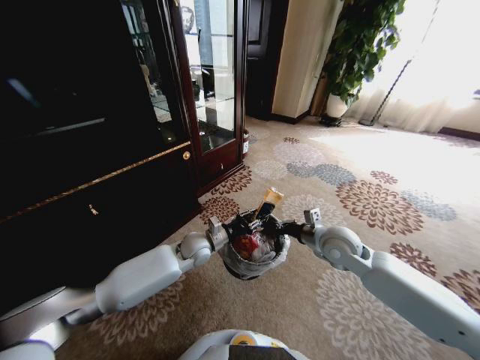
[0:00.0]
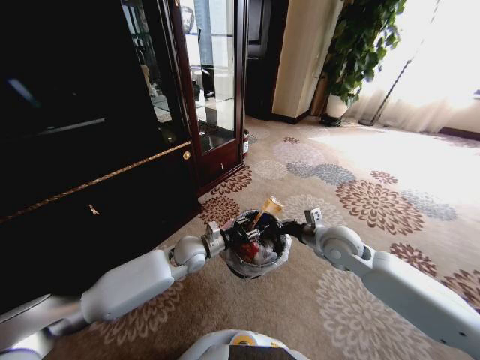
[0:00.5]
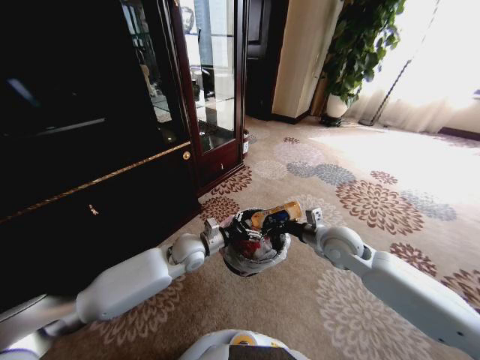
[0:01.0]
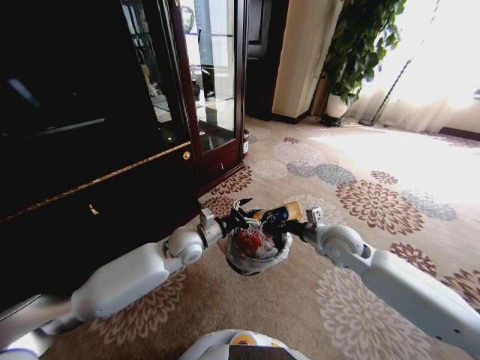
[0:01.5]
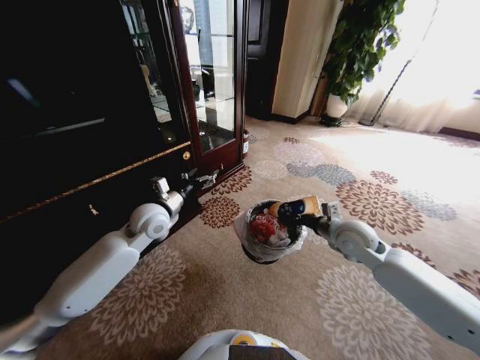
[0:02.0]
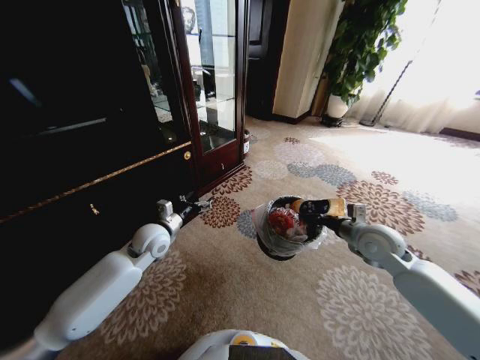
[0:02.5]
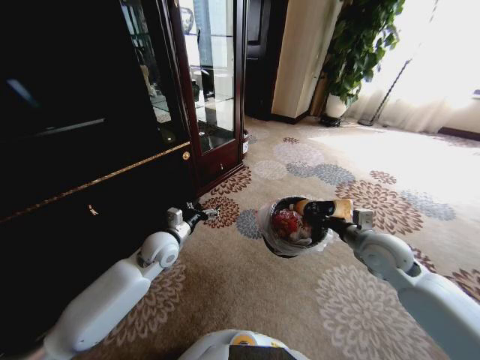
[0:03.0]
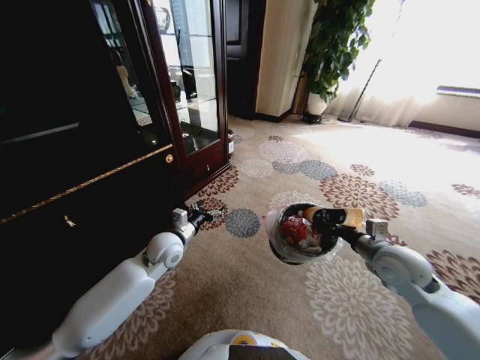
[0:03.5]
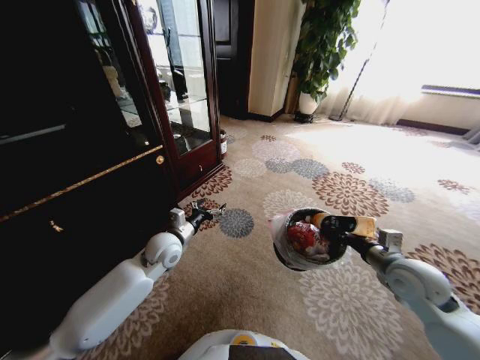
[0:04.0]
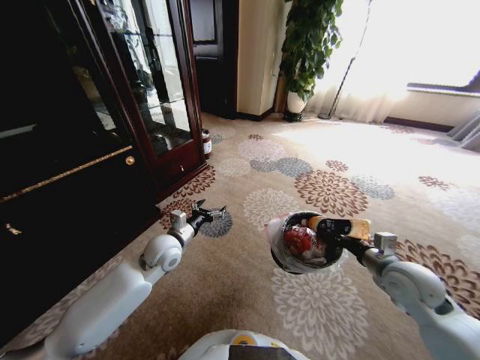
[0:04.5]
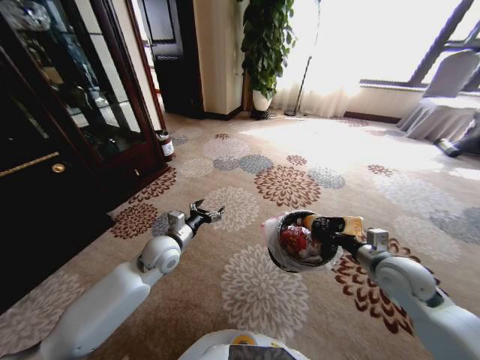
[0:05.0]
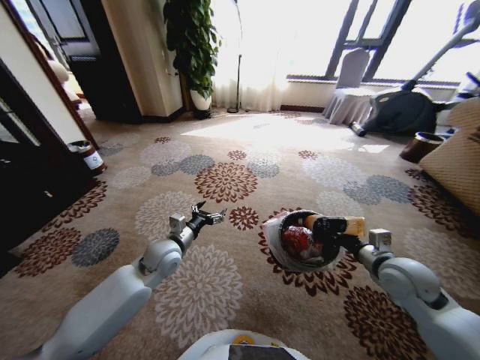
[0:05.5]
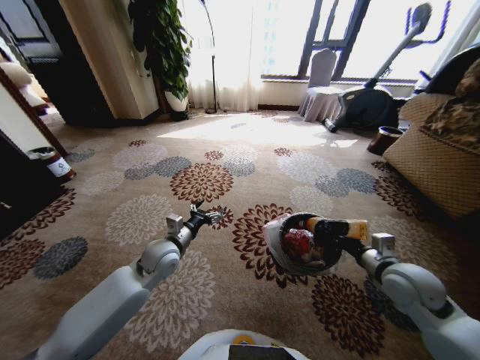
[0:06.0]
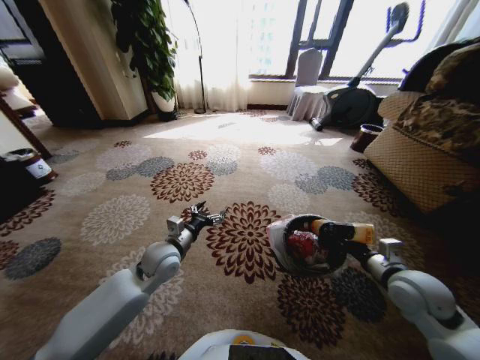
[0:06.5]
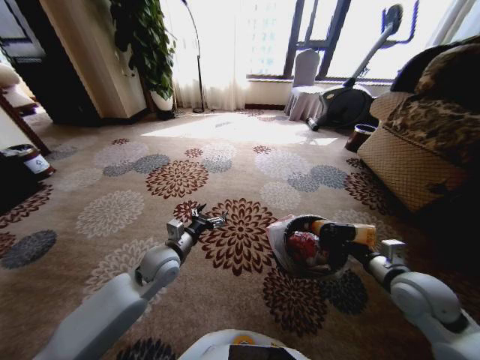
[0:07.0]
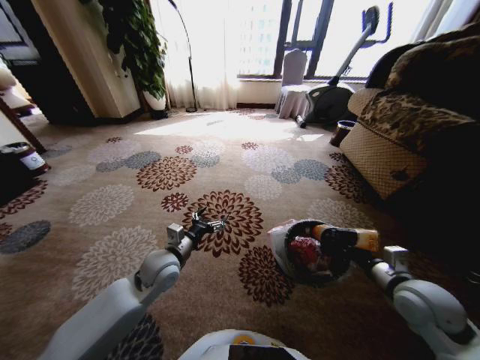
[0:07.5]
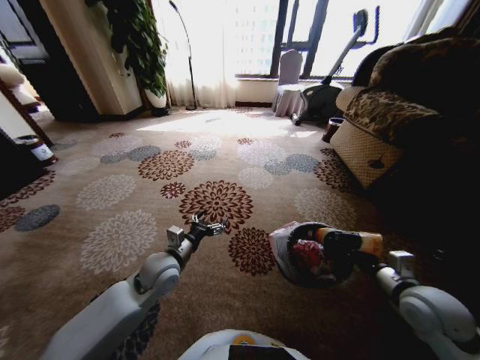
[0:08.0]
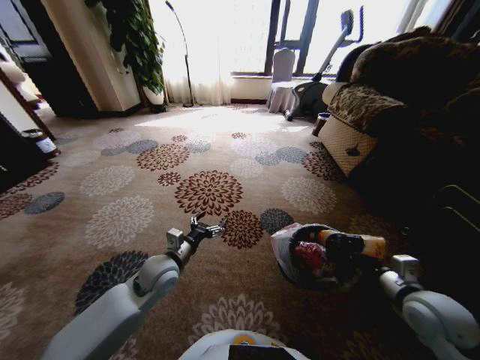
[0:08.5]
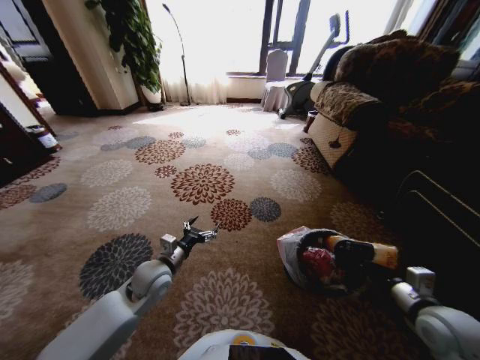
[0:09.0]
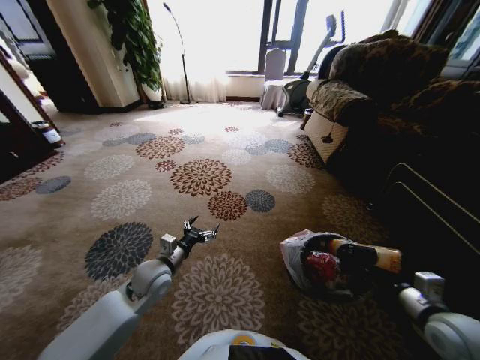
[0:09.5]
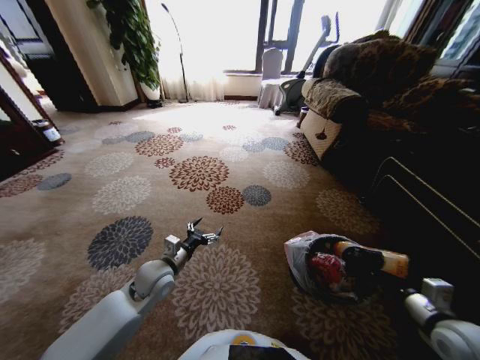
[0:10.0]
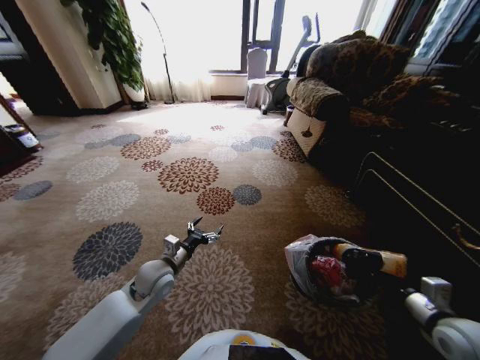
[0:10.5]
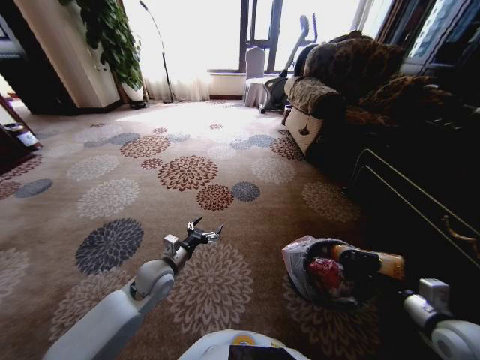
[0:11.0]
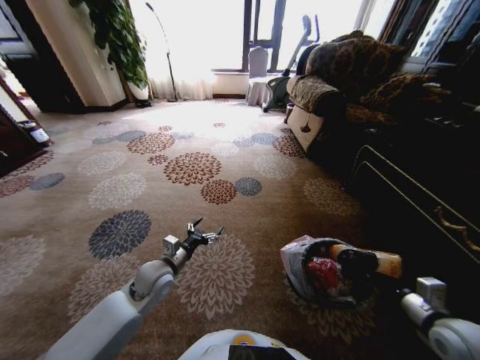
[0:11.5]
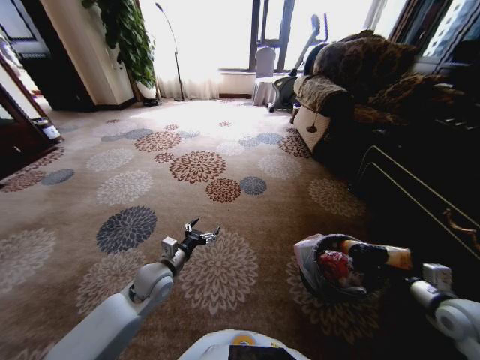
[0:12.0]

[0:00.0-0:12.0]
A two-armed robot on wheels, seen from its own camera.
Task of the whole recording: Pick up the trash from the ground and place it into the trash bin.
0:00.0 to 0:02.0: The right gripper shifts by about 5 cm, while the left gripper travels upward and to the left by some 15 cm, and opens up.
0:02.0 to 0:04.0: The right gripper goes some 15 cm backward and to the right; the left gripper is displaced downward by approximately 10 cm.
0:06.0 to 0:08.0: The right gripper ends up approximately 5 cm from where it was.
0:08.0 to 0:10.0: The right gripper heads backward, covering about 5 cm.

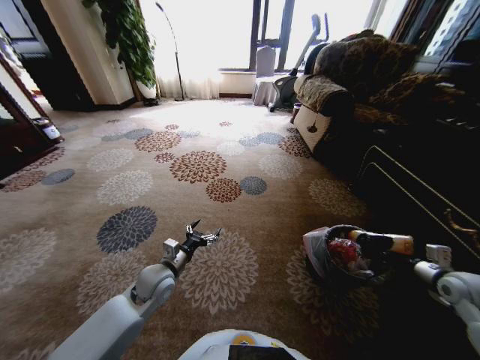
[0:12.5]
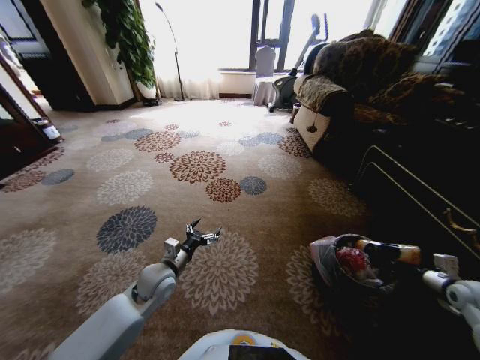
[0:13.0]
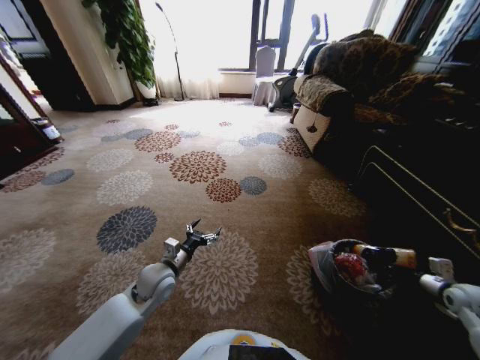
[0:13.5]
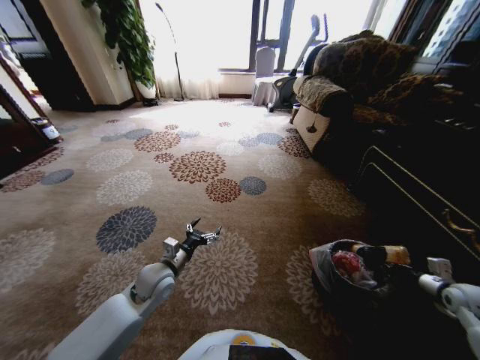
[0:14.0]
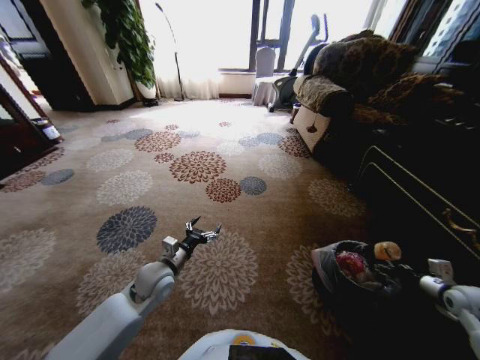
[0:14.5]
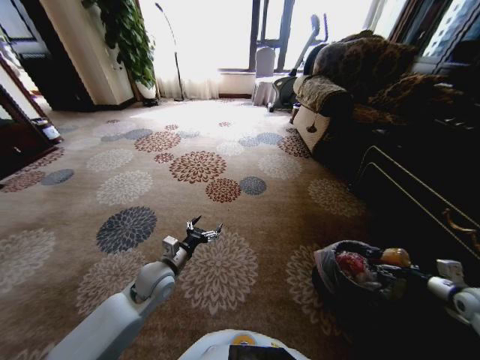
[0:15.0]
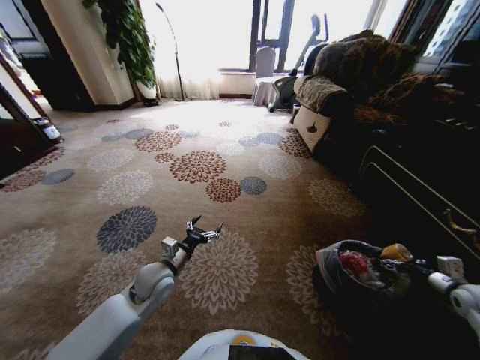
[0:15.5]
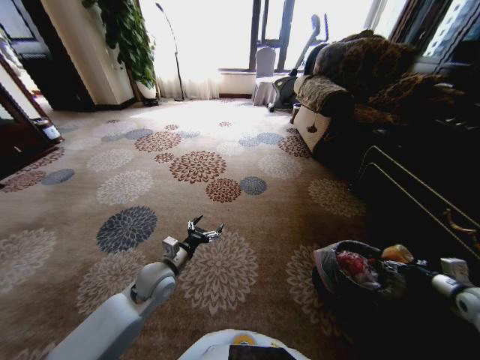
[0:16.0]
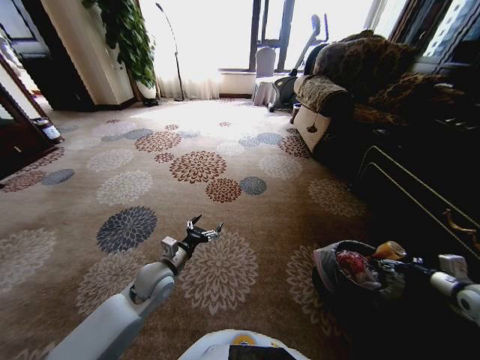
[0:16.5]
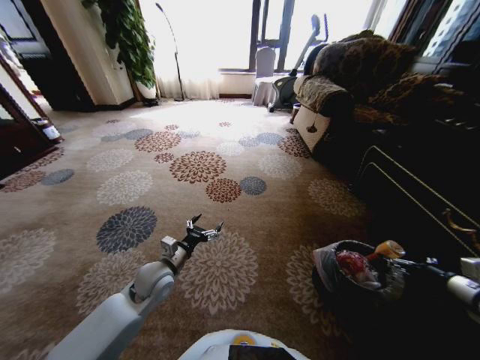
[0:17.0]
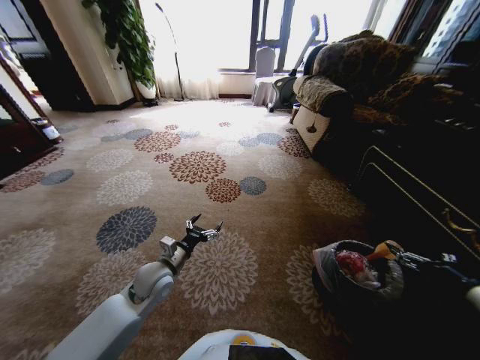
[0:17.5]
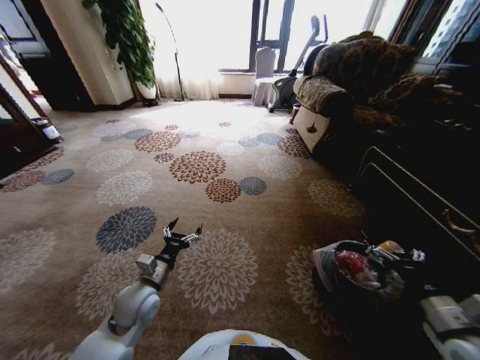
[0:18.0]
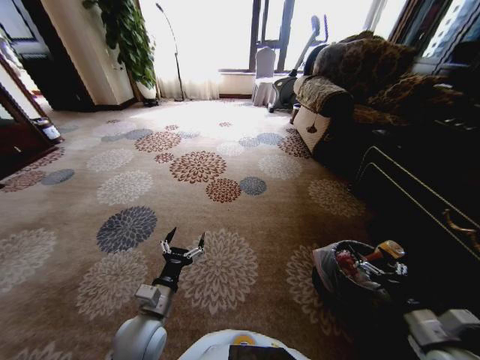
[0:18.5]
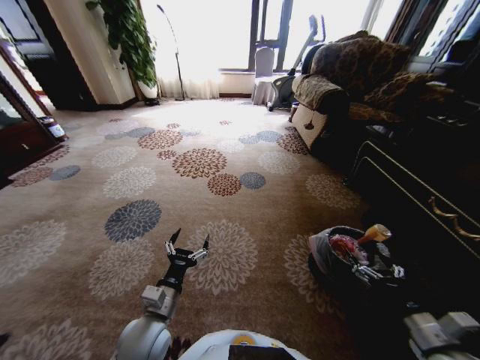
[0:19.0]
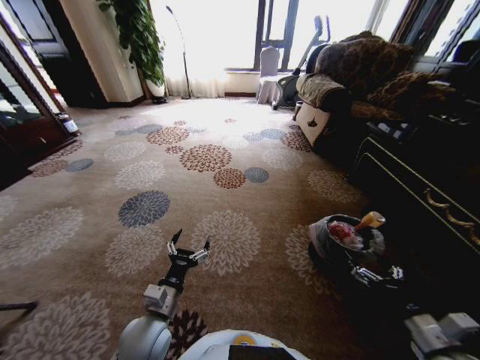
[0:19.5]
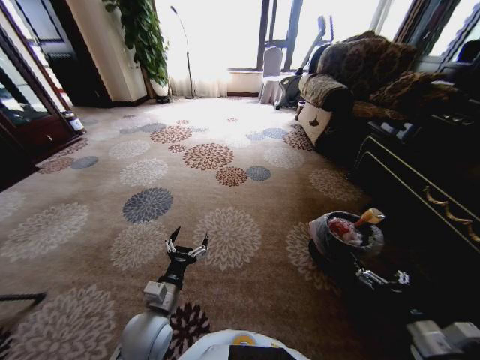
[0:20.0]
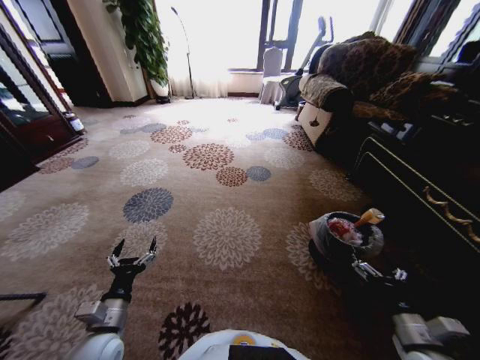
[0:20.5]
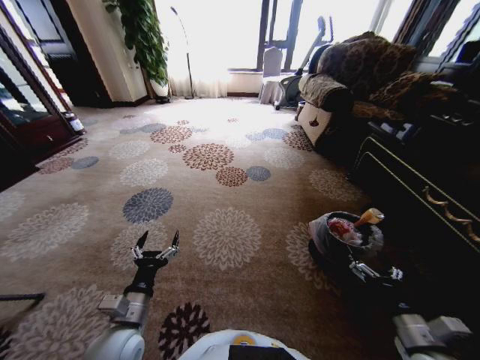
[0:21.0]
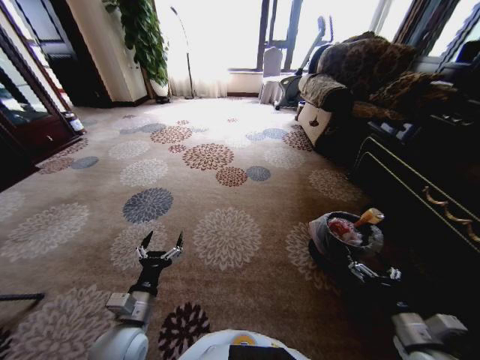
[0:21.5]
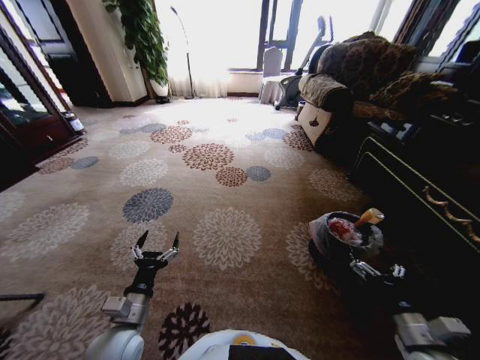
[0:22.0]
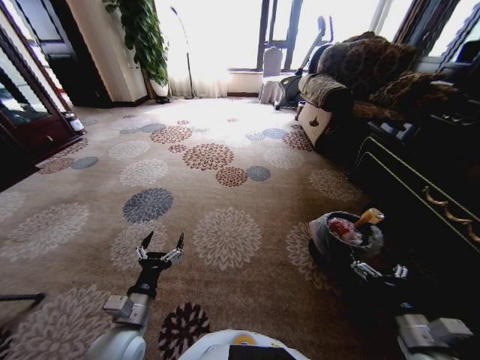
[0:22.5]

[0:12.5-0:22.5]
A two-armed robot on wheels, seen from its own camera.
Task of the whole recording: Pick up the trash from the ground and place it into the trash bin.
0:12.5 to 0:14.5: The right gripper moves approximately 5 cm, and opens.
0:14.5 to 0:16.5: The grippers move only a little.
0:16.5 to 0:18.5: The right gripper heads to the left and backward, covering some 20 cm; the left gripper is displaced backward by approximately 10 cm.
0:18.5 to 0:20.5: The left gripper shifts about 10 cm to the left.
0:20.5 to 0:22.5: The left gripper shifts some 5 cm to the right.
